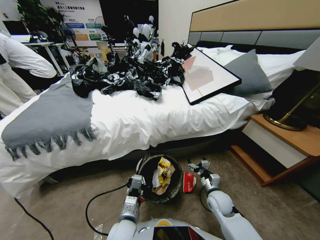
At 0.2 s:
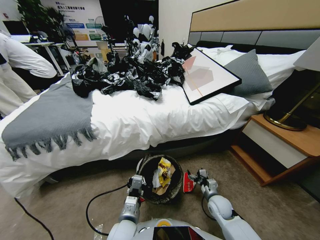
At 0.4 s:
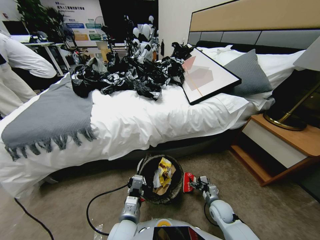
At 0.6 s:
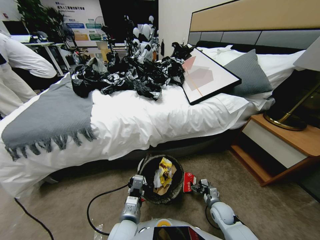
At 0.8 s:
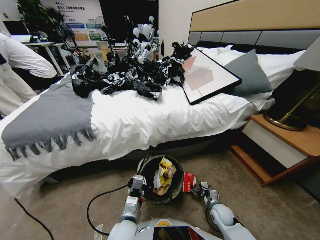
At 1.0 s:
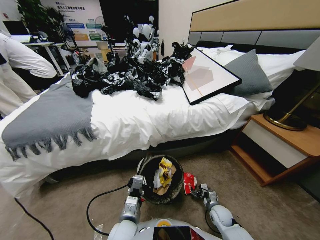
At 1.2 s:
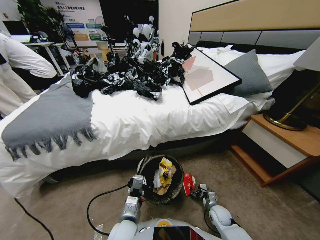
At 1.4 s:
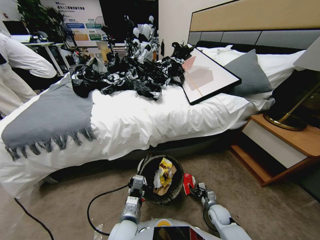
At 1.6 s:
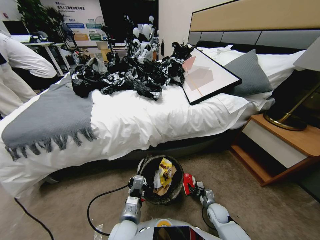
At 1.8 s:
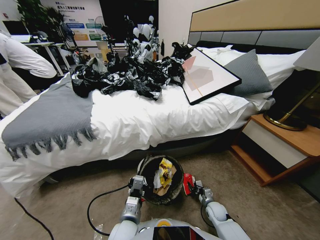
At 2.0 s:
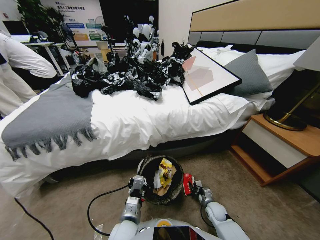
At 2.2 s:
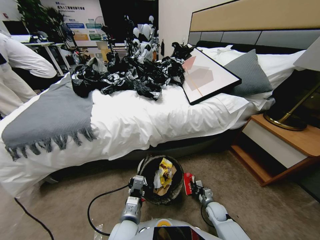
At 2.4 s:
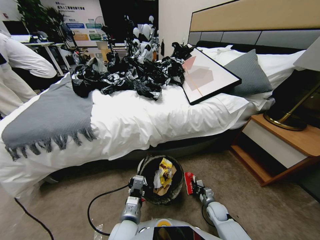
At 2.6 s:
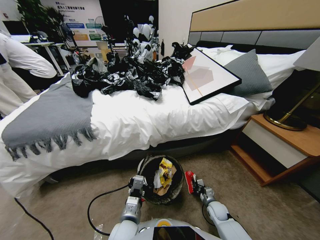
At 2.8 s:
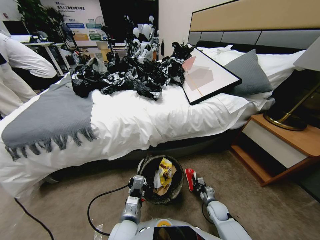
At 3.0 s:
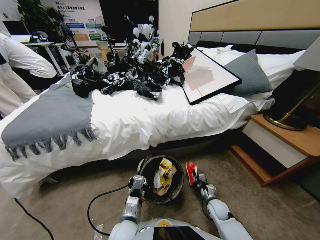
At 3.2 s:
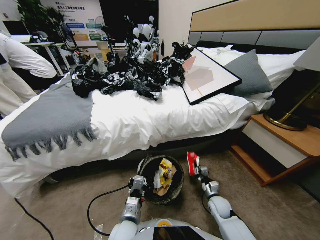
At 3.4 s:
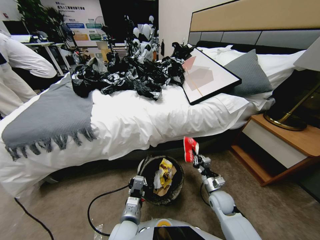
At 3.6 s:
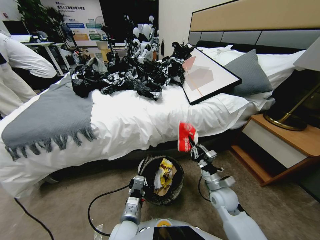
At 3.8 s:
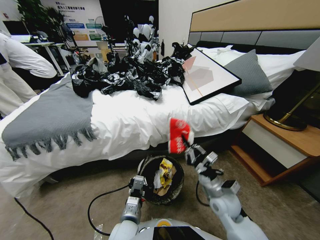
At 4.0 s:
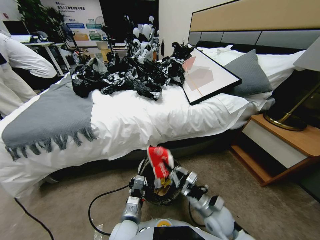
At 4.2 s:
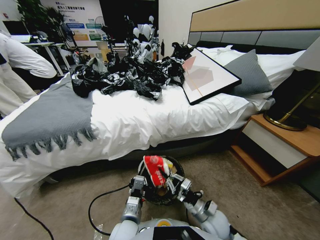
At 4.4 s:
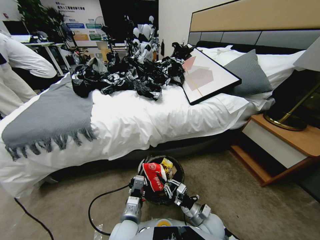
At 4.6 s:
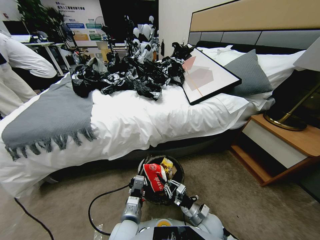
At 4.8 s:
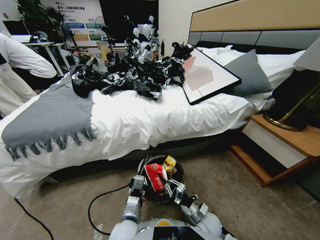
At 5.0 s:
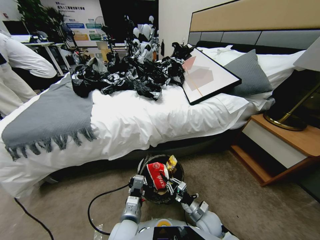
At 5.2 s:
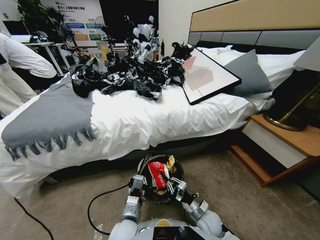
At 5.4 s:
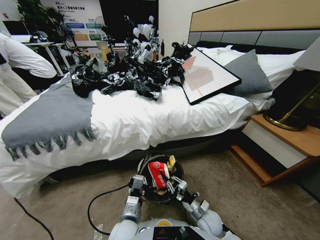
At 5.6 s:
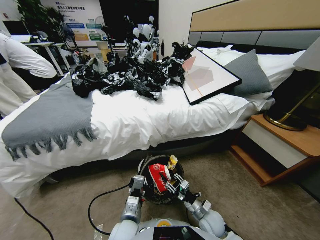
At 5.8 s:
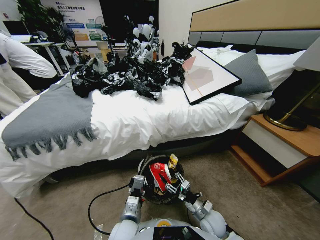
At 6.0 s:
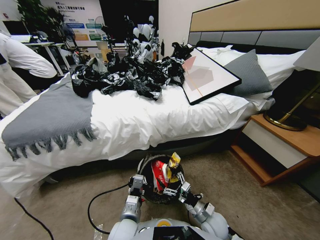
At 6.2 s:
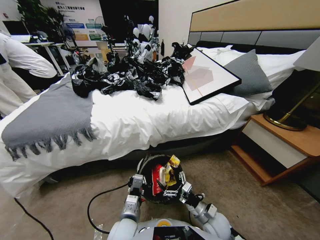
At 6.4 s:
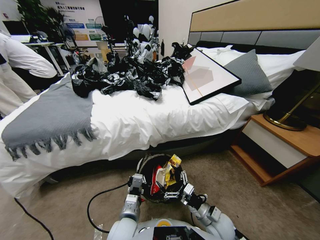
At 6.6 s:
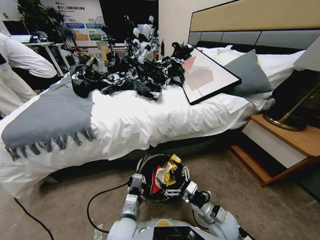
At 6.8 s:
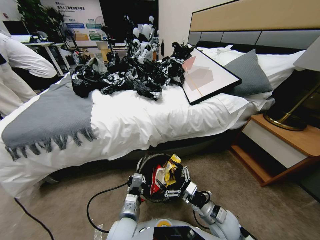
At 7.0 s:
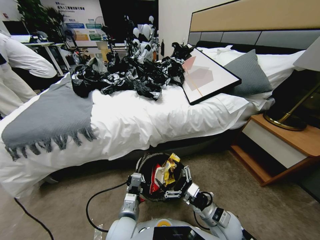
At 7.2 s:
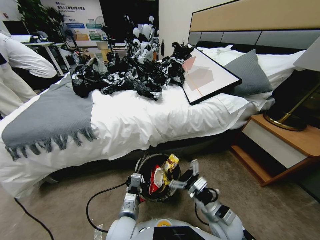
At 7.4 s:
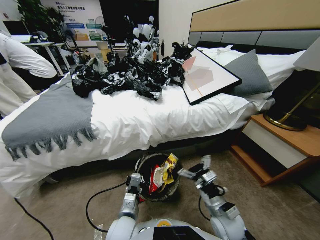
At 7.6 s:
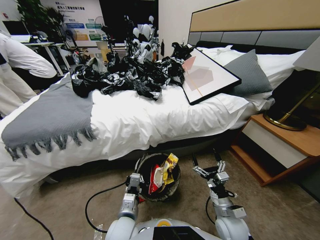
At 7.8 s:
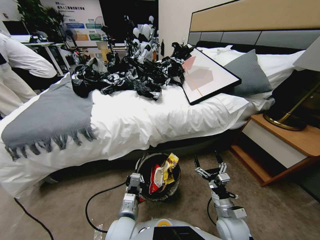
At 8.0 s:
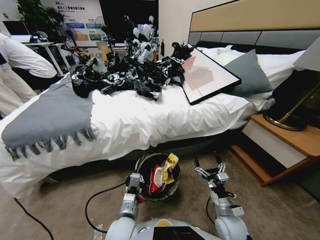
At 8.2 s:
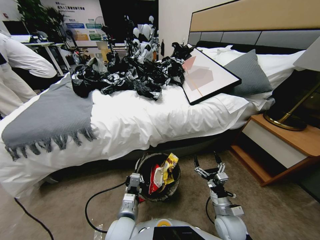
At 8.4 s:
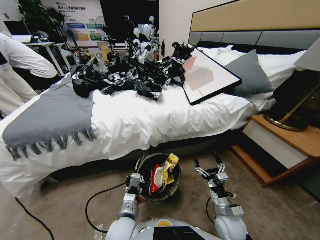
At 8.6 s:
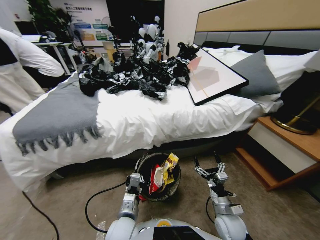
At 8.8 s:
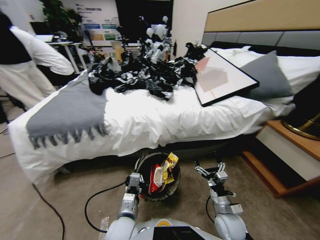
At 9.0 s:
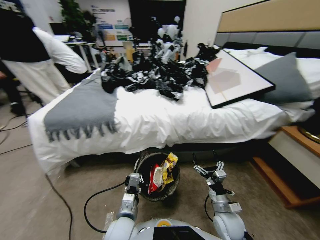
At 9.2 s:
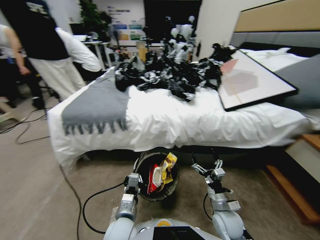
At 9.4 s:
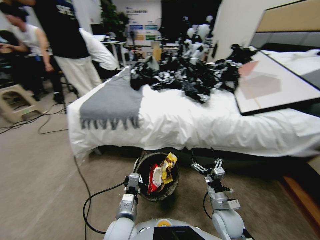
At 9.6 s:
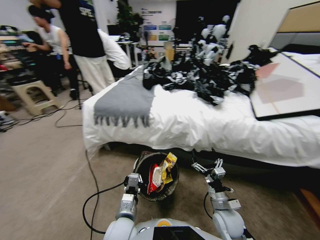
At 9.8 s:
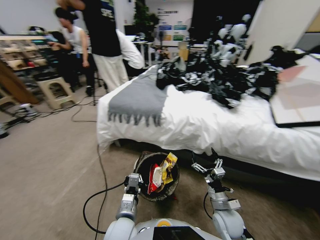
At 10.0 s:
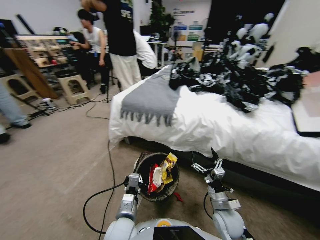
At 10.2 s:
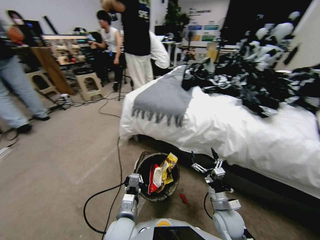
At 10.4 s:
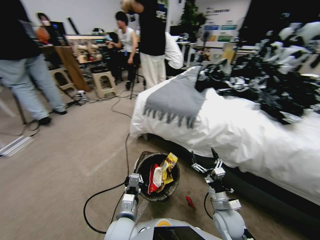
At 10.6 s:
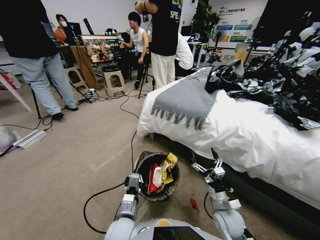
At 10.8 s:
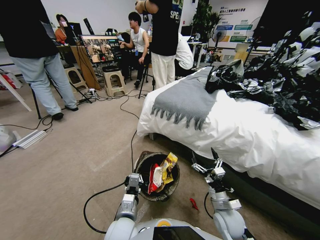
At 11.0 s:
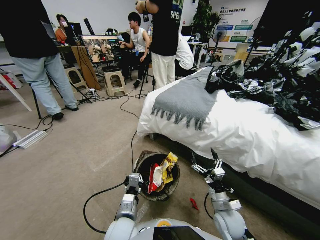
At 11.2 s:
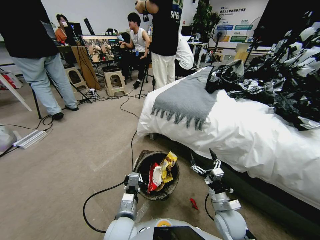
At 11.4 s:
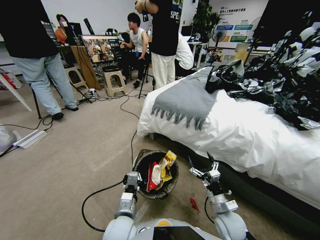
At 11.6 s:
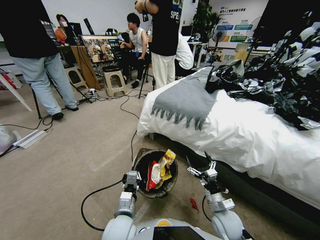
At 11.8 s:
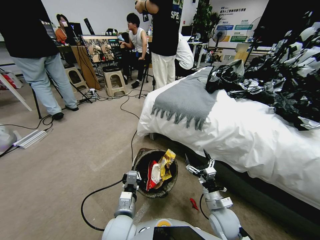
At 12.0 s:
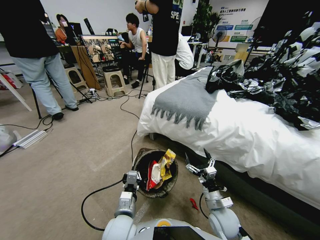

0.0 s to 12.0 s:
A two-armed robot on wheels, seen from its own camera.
Task of the whole recording: Pick up the trash bin, then pick up the garbage from the floor and place it into the trash bin.
0.0 to 1.6 s: The right gripper heads downward, covering some 10 cm, and closes up.
1.6 to 3.0 s: The right gripper is displaced upward by about 5 cm, and closes its fingers.
3.0 to 4.4 s: The right gripper is displaced to the left and backward by approximately 10 cm, and reaches approximately 20 cm upward, then returns.
4.4 to 6.0 s: The right gripper opens.
6.0 to 7.6 s: The right gripper shifts by roughly 5 cm.

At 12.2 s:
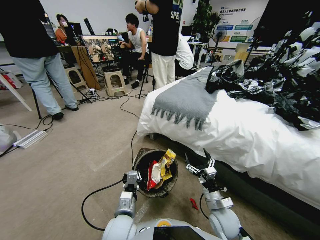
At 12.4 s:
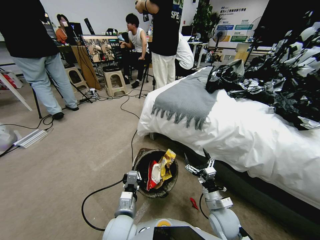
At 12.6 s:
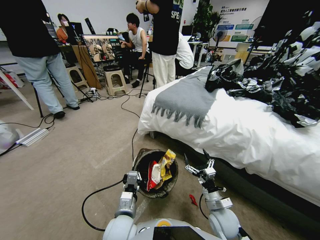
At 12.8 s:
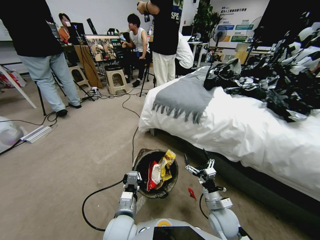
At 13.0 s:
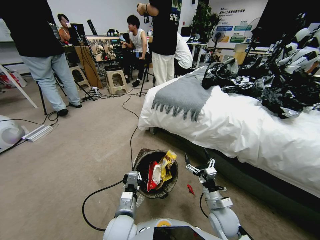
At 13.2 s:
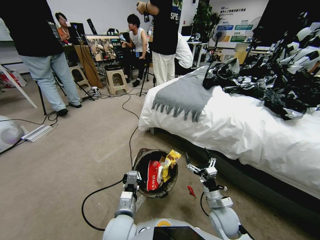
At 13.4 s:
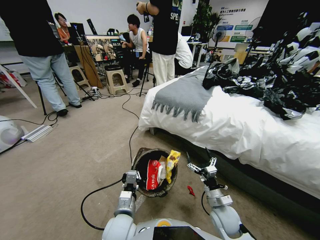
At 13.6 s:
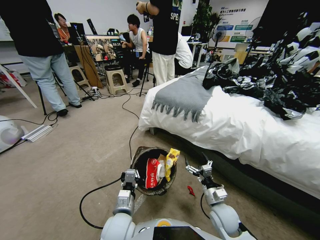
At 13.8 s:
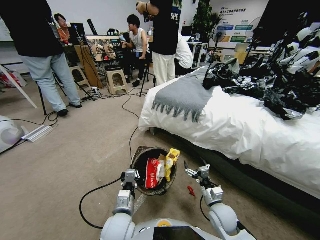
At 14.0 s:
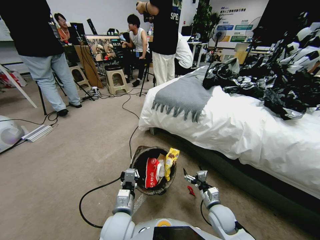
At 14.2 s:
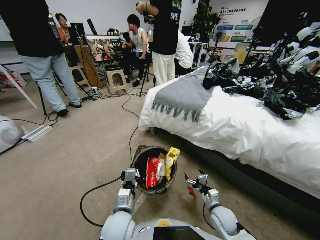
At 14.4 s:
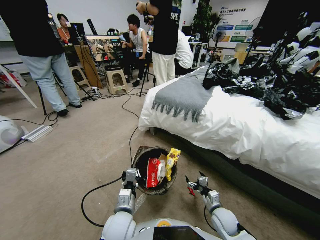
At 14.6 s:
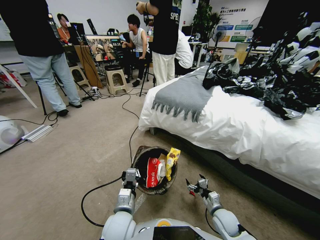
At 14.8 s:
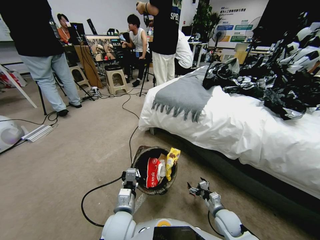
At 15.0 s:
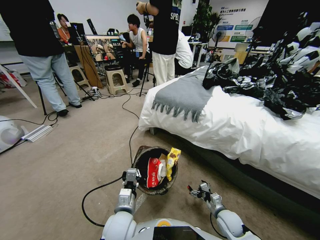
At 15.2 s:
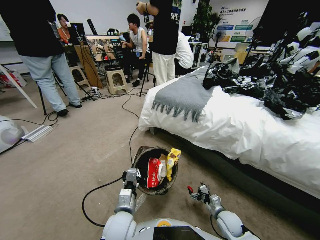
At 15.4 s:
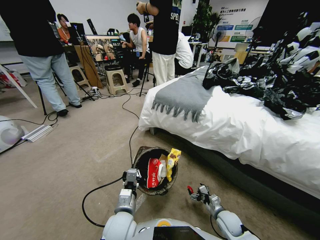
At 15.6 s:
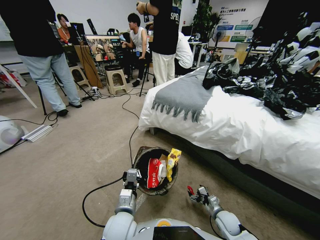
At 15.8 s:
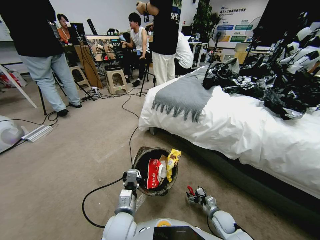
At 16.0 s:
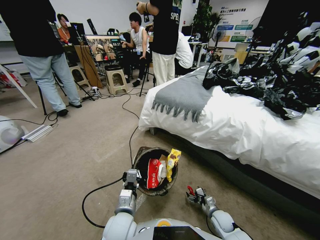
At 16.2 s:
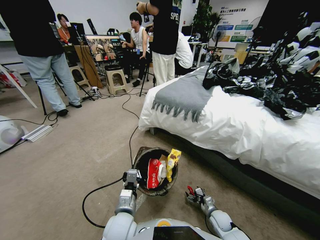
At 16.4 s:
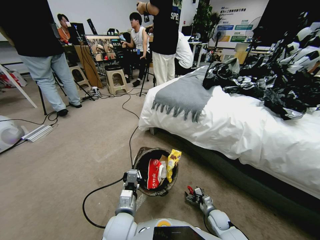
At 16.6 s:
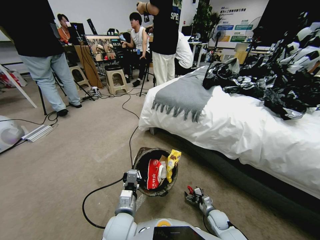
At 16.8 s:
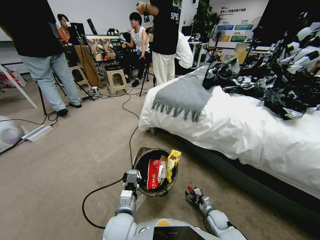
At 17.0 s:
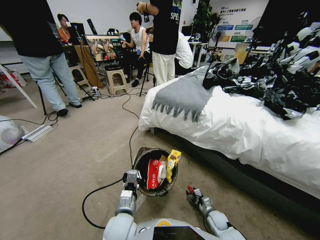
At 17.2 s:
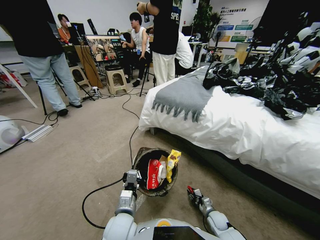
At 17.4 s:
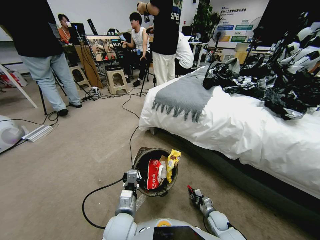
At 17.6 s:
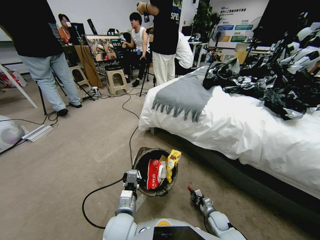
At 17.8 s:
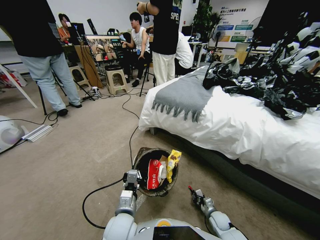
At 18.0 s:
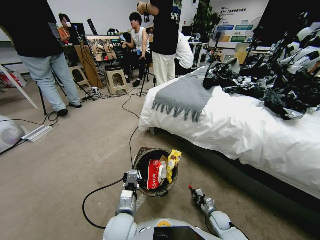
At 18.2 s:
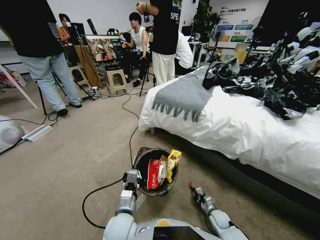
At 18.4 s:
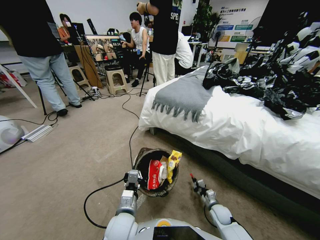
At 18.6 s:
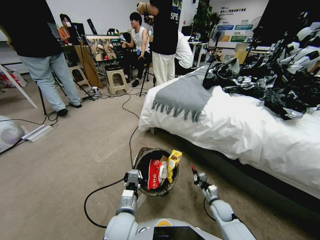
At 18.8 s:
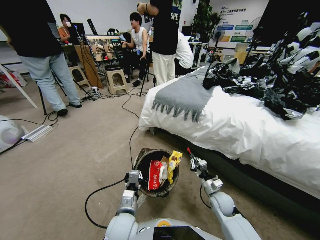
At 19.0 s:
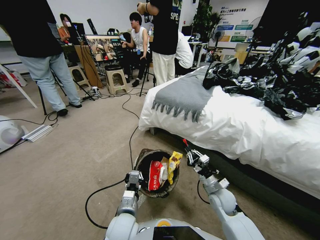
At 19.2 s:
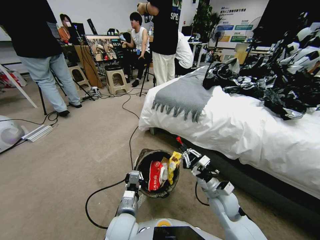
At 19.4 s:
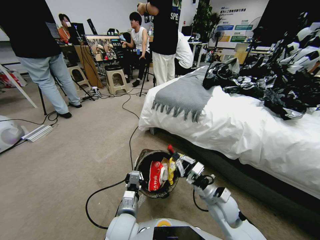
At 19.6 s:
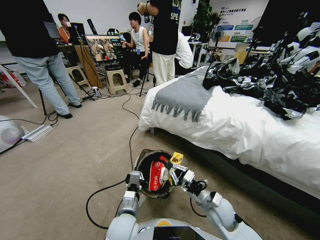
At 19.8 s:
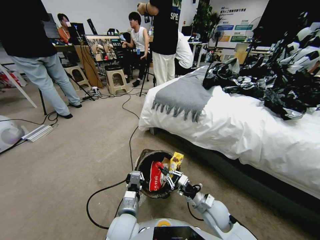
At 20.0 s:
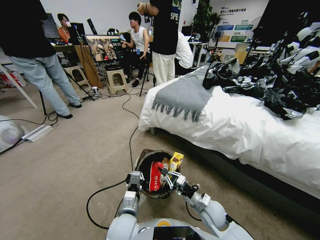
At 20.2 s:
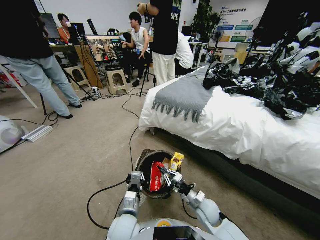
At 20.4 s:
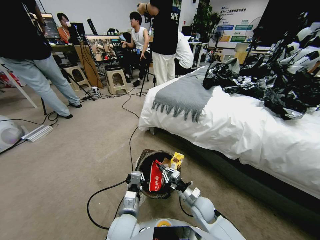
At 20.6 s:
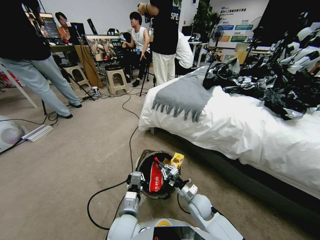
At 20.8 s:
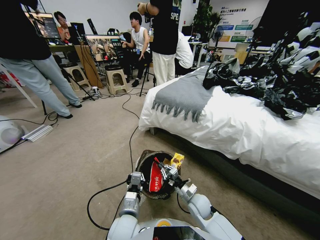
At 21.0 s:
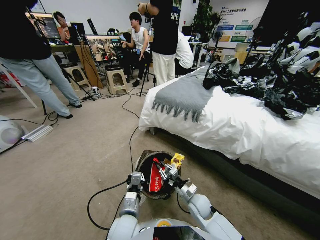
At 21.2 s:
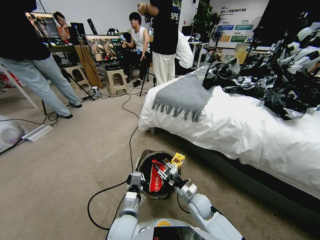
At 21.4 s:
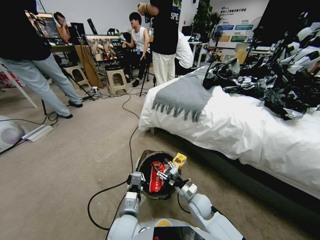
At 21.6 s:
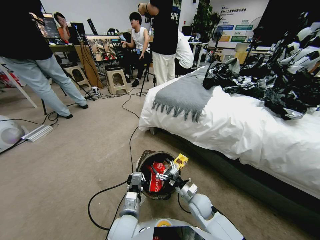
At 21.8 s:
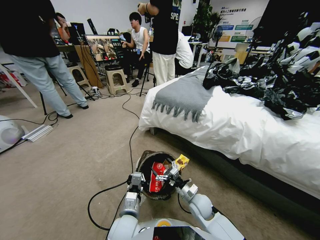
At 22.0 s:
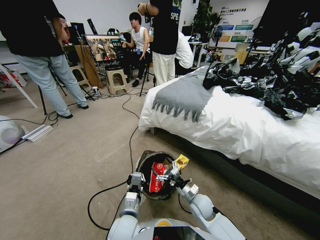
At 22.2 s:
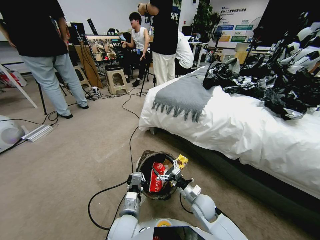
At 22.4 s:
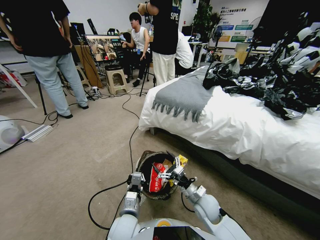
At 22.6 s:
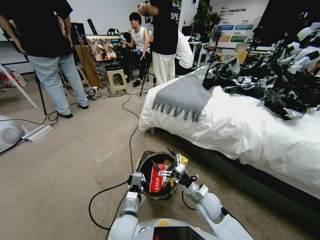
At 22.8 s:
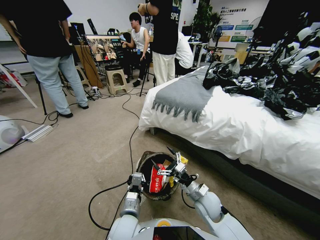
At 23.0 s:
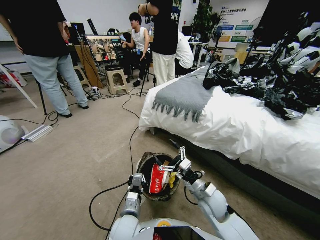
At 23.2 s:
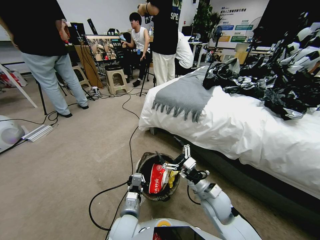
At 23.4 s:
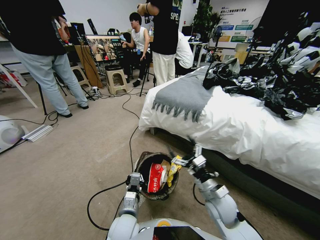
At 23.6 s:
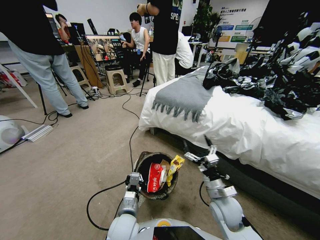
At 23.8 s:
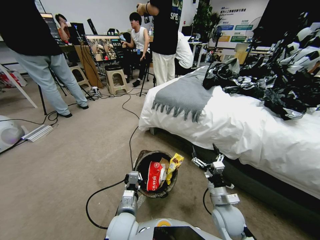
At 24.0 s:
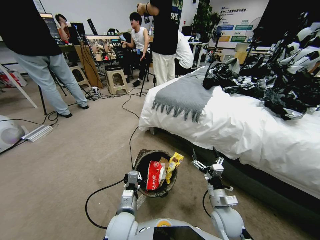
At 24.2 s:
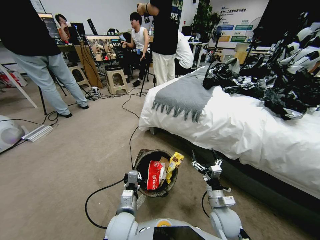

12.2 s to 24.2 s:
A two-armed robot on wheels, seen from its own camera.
Task of the whole recording: Pick up the trash bin, then pick up the garbage from the floor and place it into the trash bin.
13.8 to 15.2 s: The right gripper heads downward and to the right, covering about 10 cm.
15.2 to 16.6 s: The right gripper shifts some 10 cm downward.
16.6 to 18.2 s: The right gripper closes.
18.2 to 19.8 s: The right gripper goes approximately 20 cm upward and to the left.
19.8 to 21.2 s: The right gripper changes place by approximately 5 cm, and opens up.
21.2 to 22.6 s: The right gripper heads upward, covering about 5 cm, and opens up.
22.6 to 24.2 s: The right gripper shifts some 5 cm to the right.
